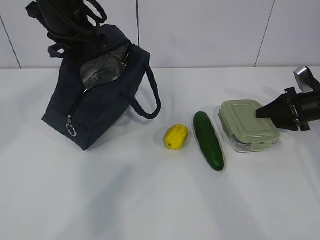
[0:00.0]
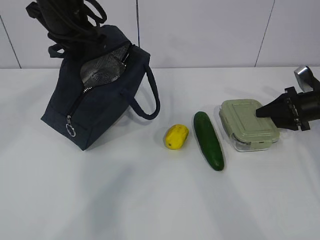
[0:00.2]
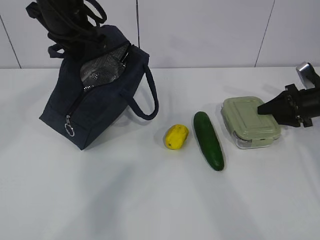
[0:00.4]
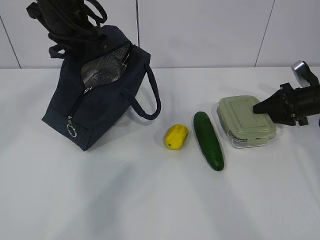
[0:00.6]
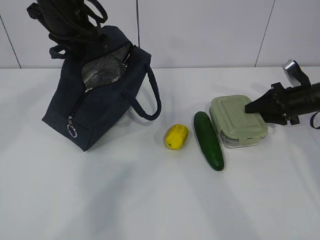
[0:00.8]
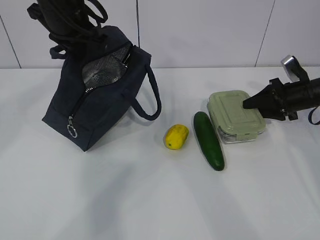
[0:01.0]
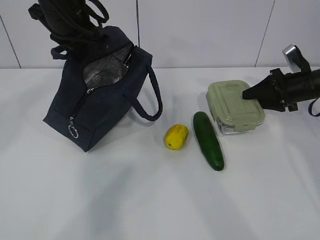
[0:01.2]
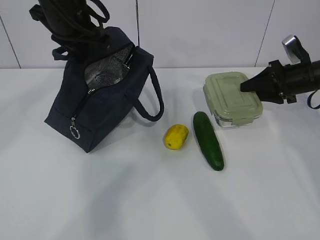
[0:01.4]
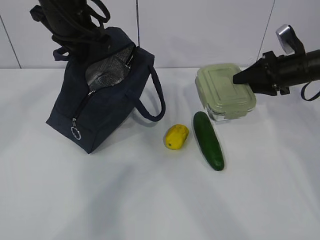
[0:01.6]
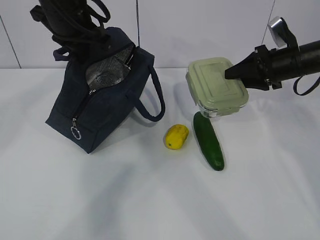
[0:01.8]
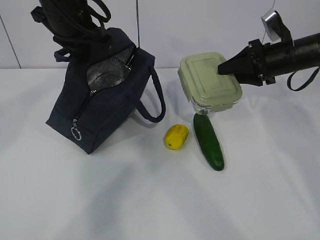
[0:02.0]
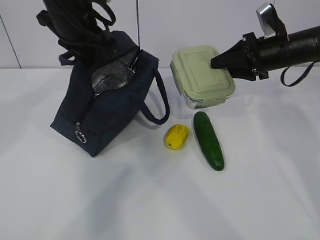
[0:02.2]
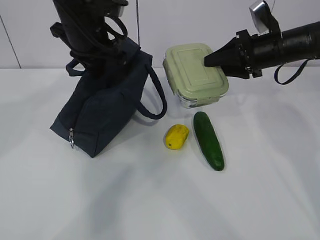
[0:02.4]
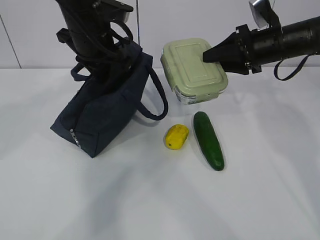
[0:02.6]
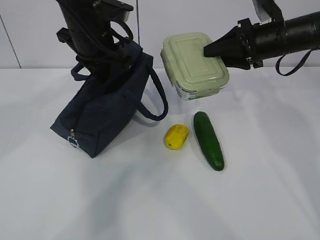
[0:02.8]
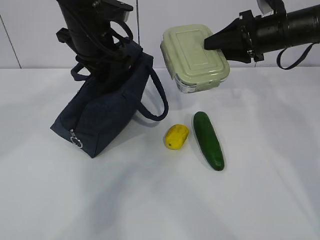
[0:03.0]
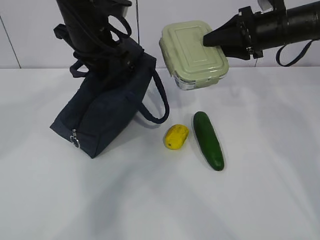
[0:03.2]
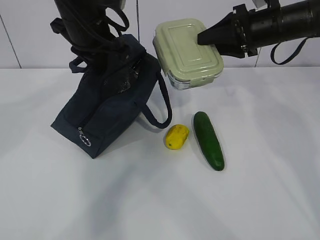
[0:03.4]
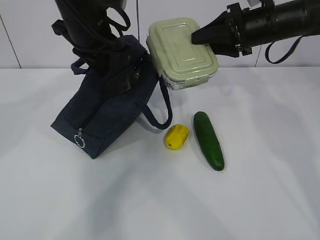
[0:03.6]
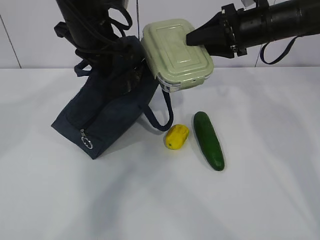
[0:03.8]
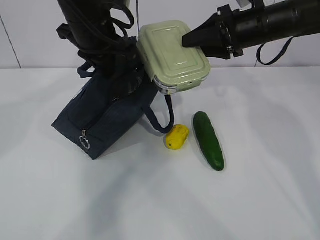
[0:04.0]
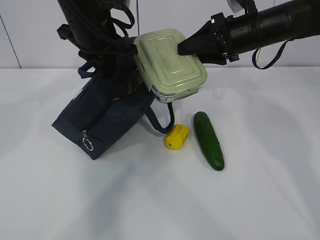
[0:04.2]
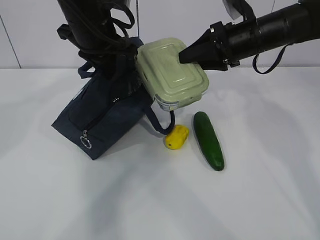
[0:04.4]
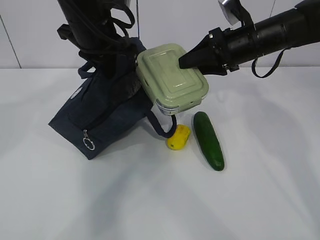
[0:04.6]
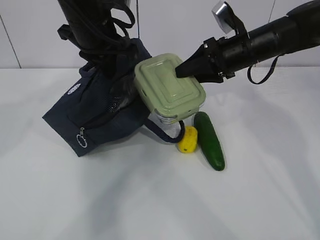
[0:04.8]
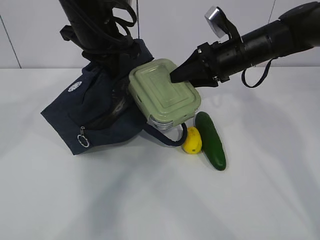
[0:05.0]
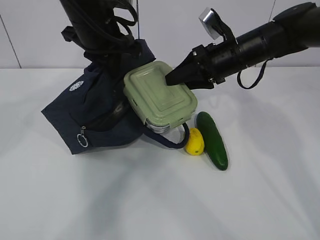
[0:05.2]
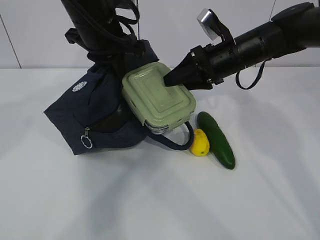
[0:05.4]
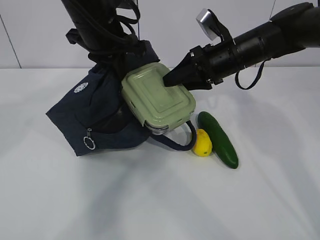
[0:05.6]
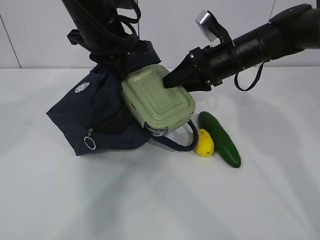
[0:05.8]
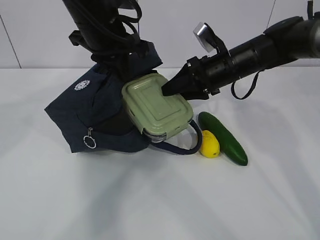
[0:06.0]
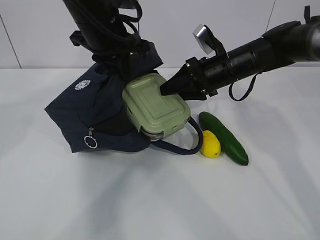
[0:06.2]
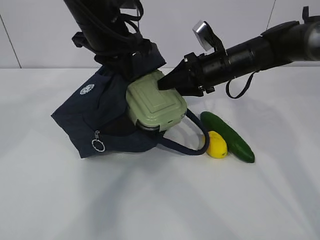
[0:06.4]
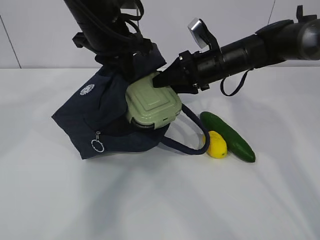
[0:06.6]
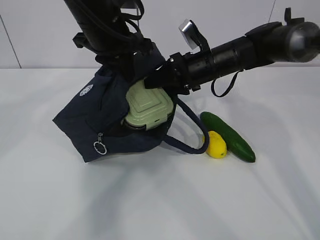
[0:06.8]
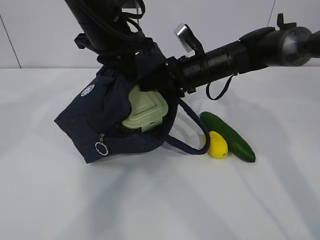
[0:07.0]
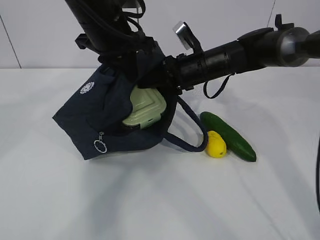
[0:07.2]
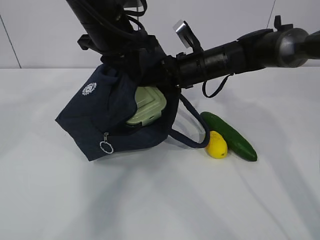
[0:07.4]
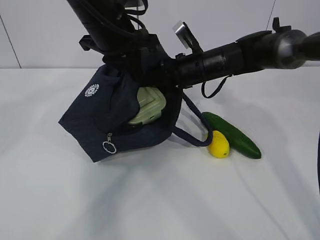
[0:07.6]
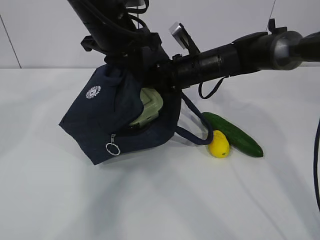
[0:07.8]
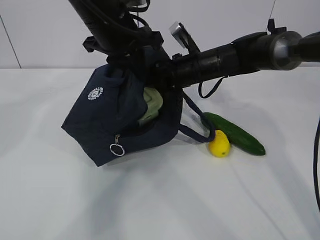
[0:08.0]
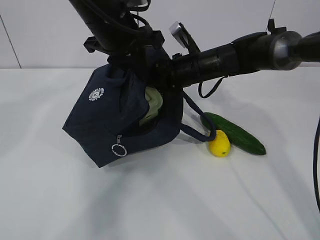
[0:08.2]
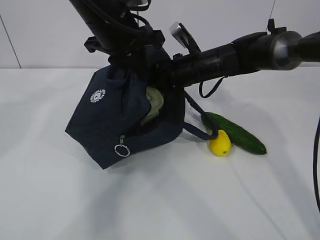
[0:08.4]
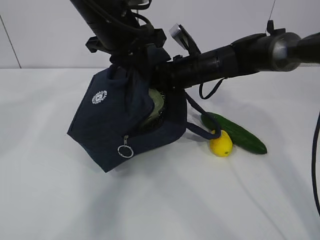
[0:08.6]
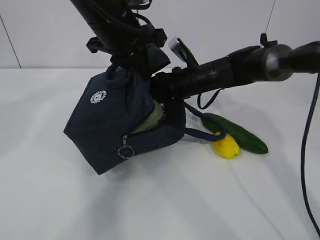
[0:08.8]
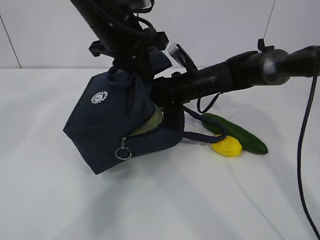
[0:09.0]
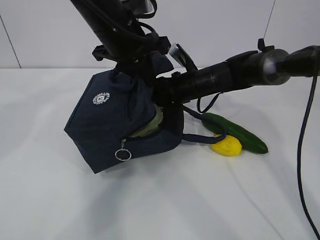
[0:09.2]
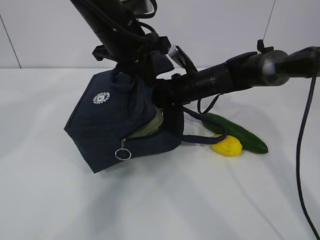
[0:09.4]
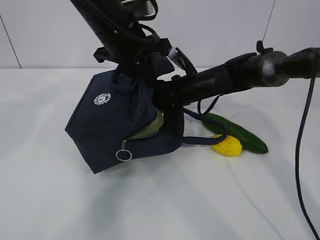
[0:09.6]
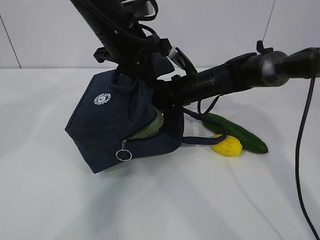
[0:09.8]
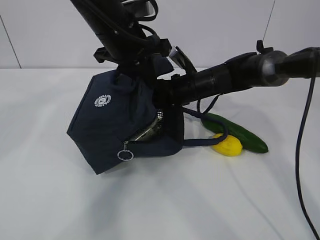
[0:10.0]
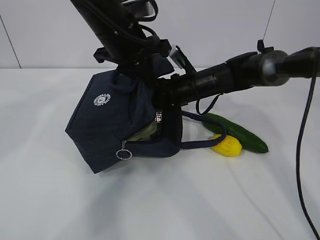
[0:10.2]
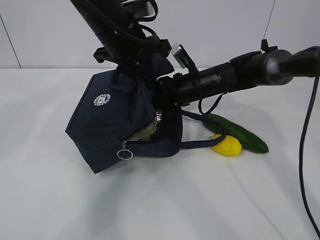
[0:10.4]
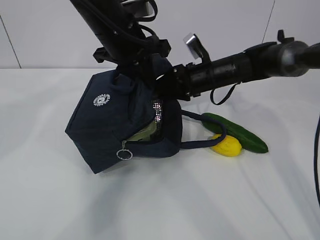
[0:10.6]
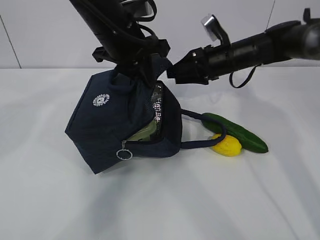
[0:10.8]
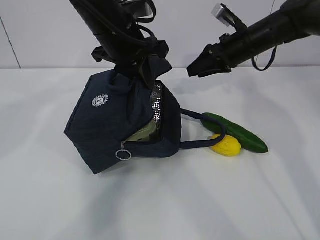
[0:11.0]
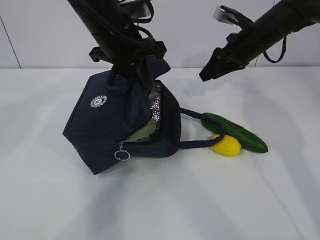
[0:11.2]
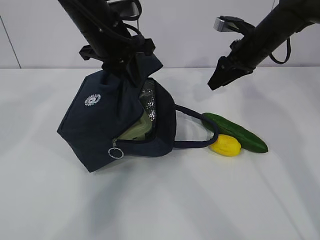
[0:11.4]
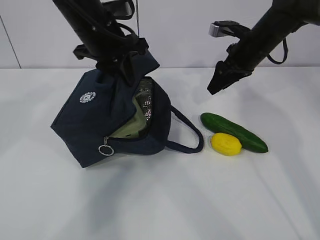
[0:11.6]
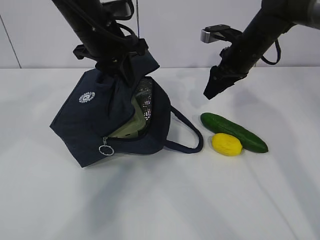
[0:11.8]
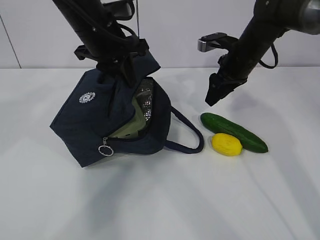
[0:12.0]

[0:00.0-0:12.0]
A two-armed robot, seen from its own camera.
Step, 0:01.0 to 0:05.6: Place it into the bag with your right hand.
Step, 0:05.8 to 0:08.2: Grab the cucumber with your right hand.
0:00.0 to 0:01.6: The right gripper moves upward and to the left, approximately 10 cm.
0:01.6 to 0:03.0: The right gripper moves upward and to the left, some 10 cm.
0:03.0 to 0:04.4: The grippers make only small movements.
0:04.4 to 0:06.0: The right gripper shifts roughly 5 cm downward.
0:06.0 to 0:07.6: The right gripper shifts by about 5 cm.
0:07.6 to 0:10.4: The grippers move only a little.
0:10.4 to 0:12.0: The right gripper is displaced to the right and upward by roughly 10 cm.

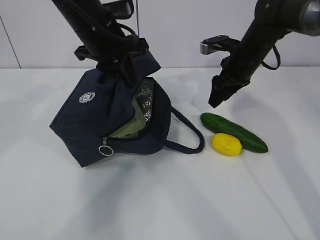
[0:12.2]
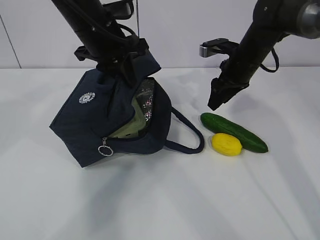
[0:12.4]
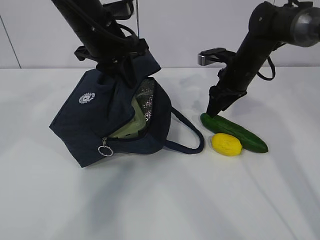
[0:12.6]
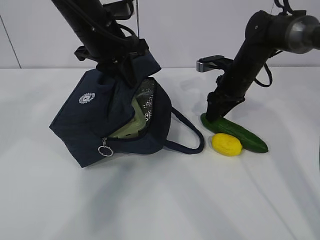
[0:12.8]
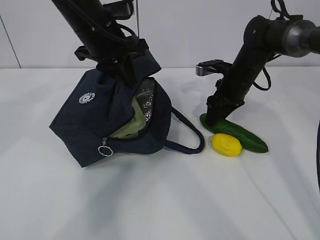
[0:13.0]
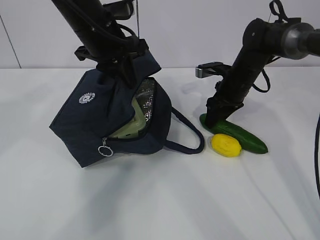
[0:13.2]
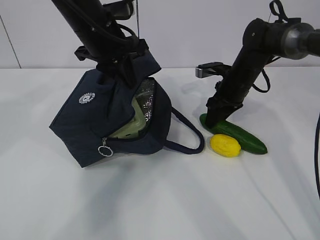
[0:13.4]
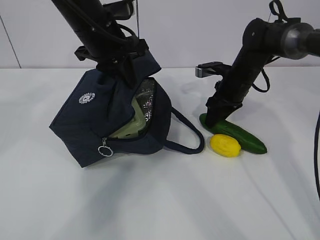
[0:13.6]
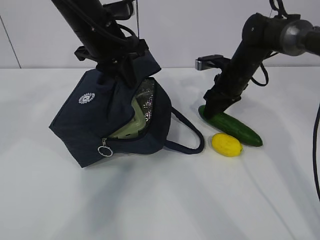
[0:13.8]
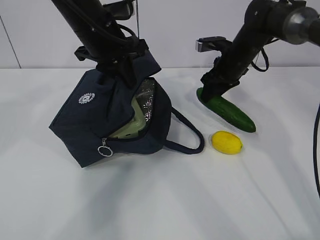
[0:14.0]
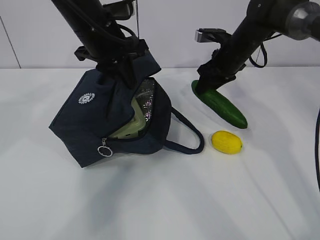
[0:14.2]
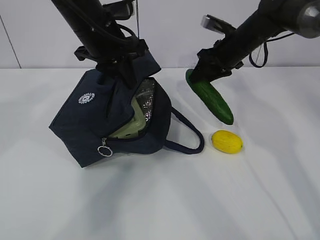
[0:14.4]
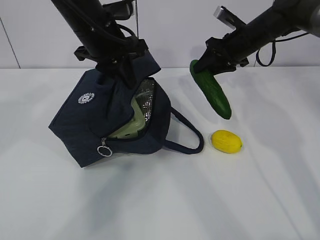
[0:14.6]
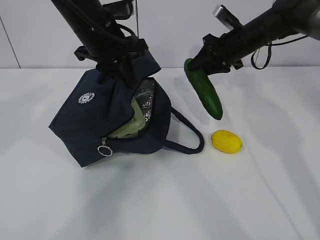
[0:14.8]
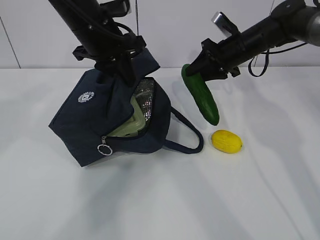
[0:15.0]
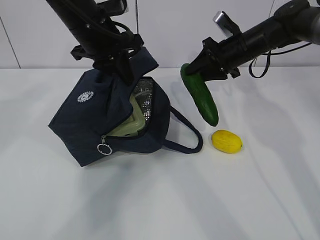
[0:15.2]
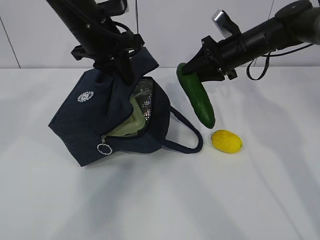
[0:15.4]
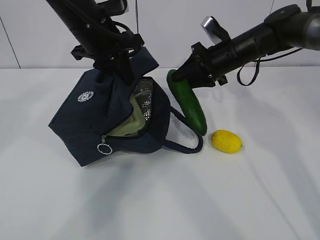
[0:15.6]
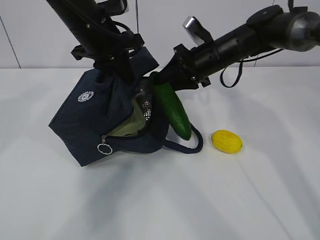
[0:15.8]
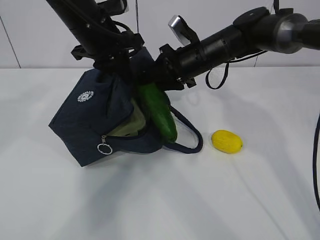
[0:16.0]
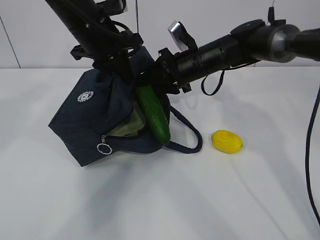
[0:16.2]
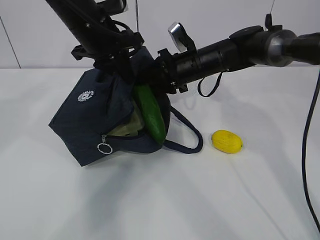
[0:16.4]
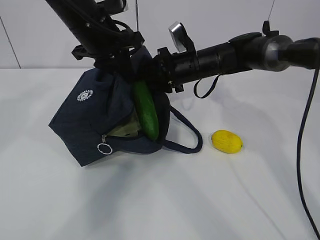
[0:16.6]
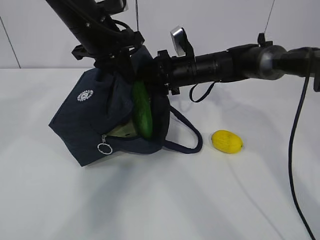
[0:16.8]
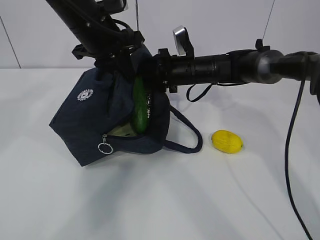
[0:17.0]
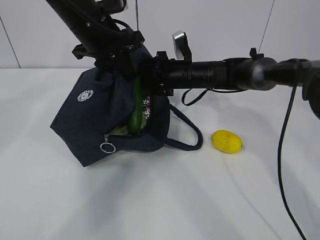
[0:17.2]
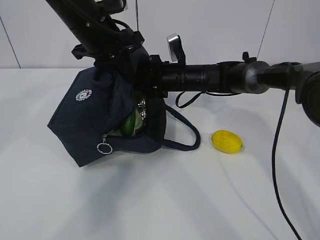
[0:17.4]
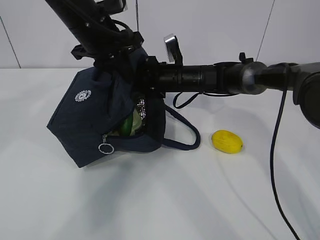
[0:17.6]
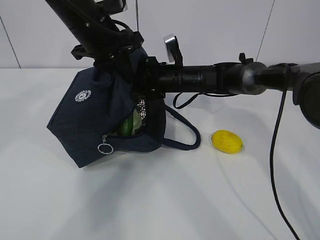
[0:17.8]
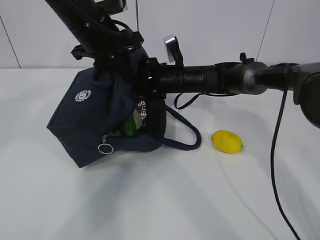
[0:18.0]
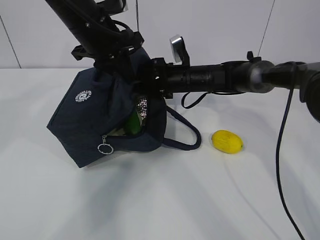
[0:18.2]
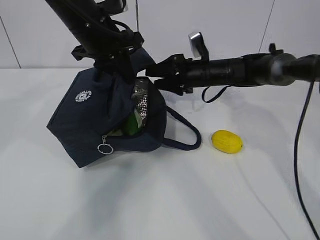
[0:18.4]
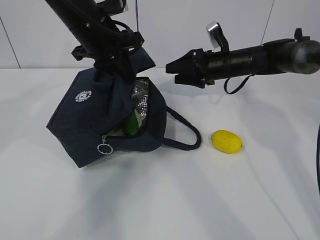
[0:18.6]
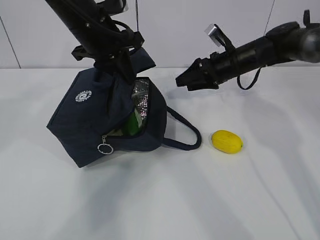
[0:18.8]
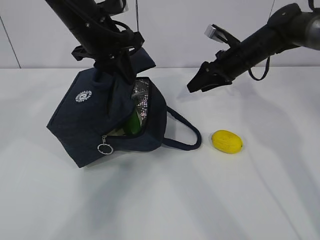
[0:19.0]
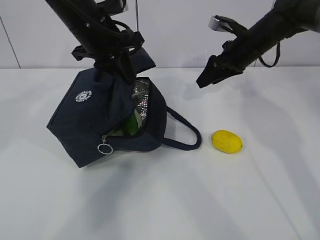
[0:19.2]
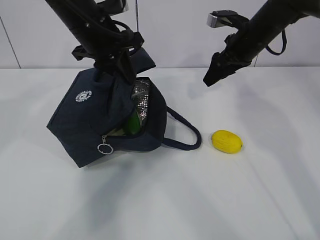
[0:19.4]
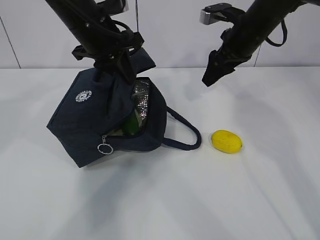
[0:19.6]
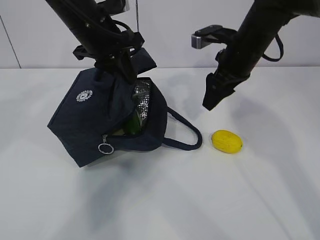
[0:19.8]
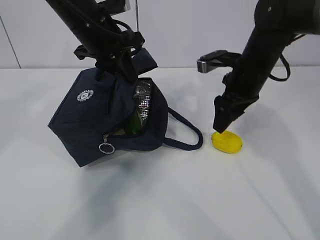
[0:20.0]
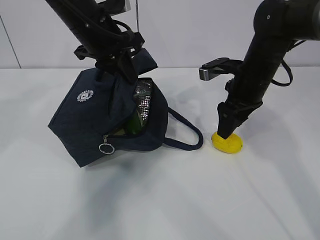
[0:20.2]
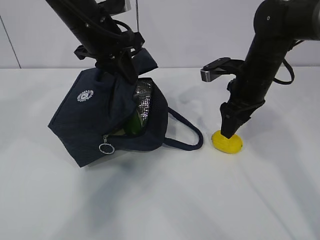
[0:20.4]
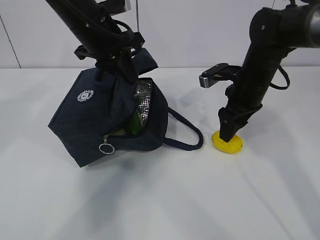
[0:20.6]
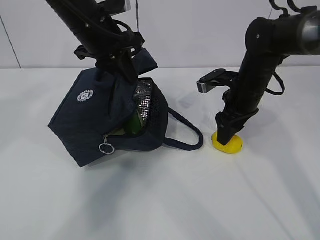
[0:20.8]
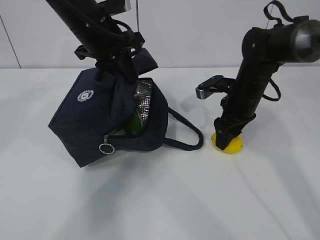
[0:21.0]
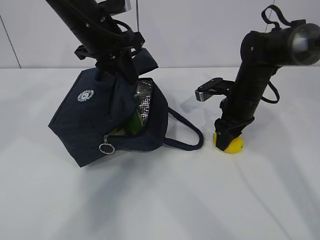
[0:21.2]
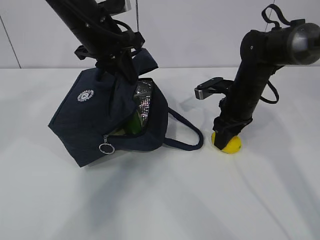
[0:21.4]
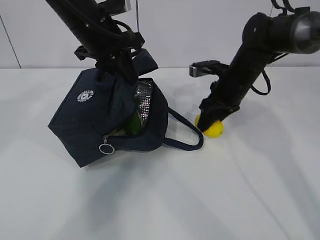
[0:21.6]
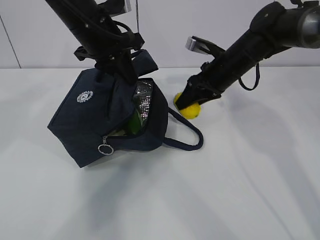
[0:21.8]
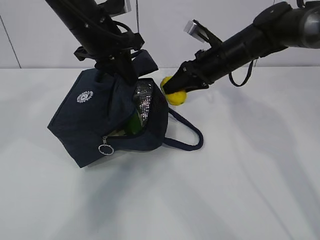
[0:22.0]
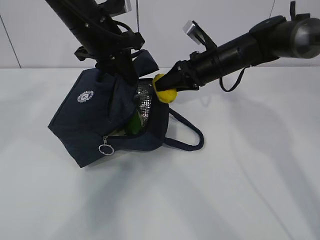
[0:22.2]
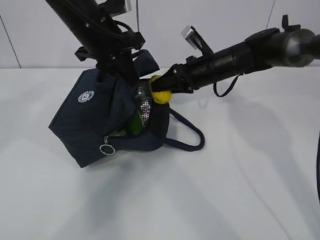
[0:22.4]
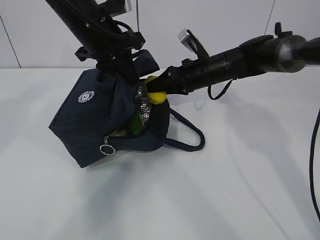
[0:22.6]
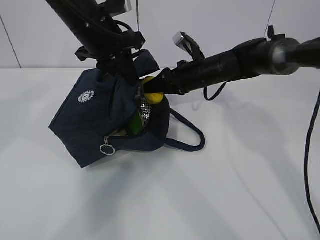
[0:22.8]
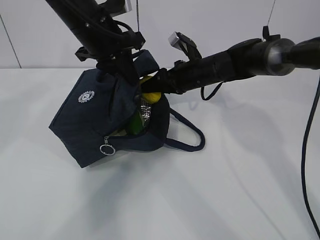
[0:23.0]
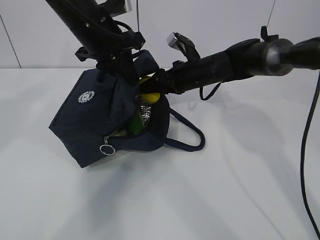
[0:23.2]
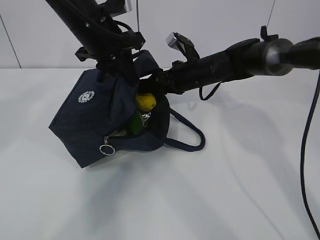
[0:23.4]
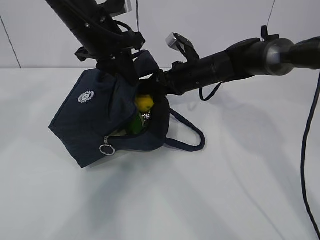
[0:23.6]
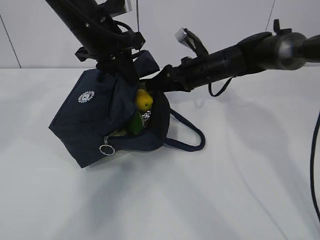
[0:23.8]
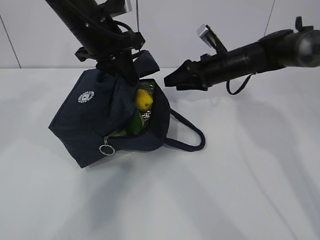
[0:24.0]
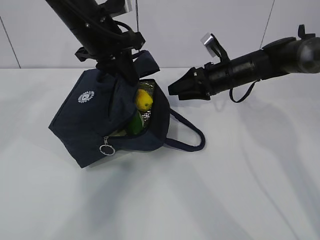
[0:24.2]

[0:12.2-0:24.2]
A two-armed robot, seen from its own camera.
Step, 0:12.4 to 0:14.8: Grab the lemon with your right hand.
Step, 0:17.0 to 0:18.4: Grab the lunch bag with your right hand.
Step, 0:18.6 to 0:20.6: Stand the lunch bag upright with your right hand.
0:12.2 to 0:13.8: The right gripper shifts roughly 5 cm downward.
0:13.8 to 0:15.2: The right gripper shifts some 5 cm upward.
0:15.2 to 0:16.6: The right gripper moves to the left, approximately 10 cm.
0:16.6 to 0:18.2: The grippers stay close to where they were, moving slightly.
0:18.2 to 0:19.8: The right gripper is displaced upward, to the right and backward by roughly 15 cm.
0:19.8 to 0:21.2: The right gripper moves downward, approximately 10 cm.
0:21.2 to 0:22.6: The right gripper is displaced to the left and forward by about 10 cm.
0:22.6 to 0:24.2: The right gripper heads to the right, covering roughly 5 cm.
